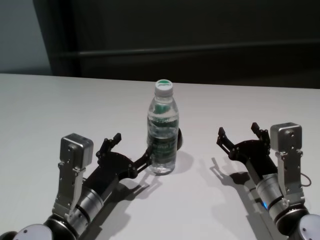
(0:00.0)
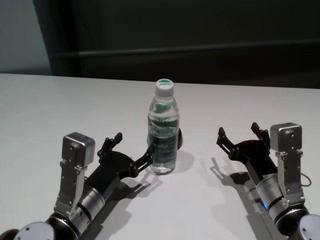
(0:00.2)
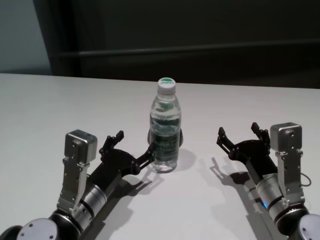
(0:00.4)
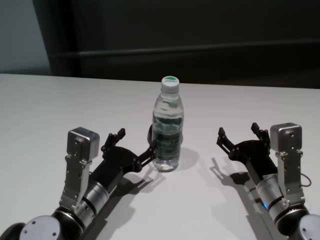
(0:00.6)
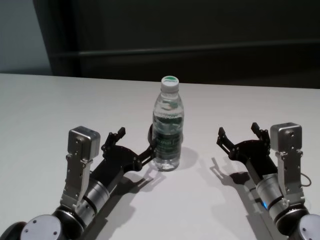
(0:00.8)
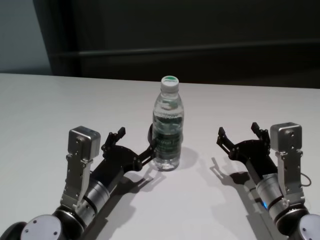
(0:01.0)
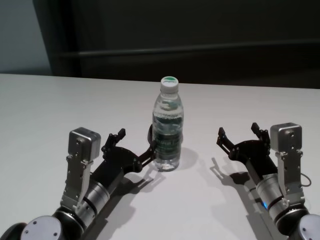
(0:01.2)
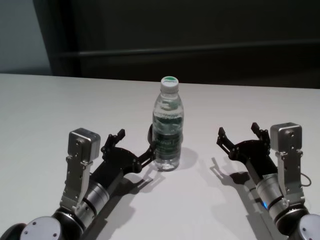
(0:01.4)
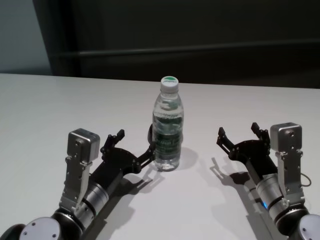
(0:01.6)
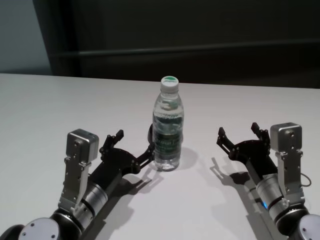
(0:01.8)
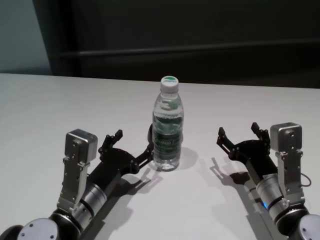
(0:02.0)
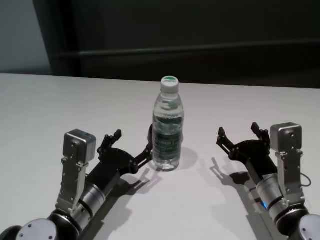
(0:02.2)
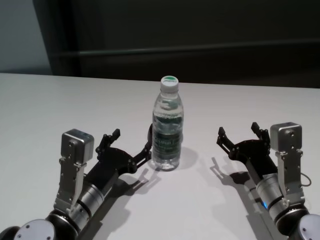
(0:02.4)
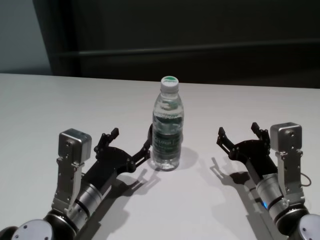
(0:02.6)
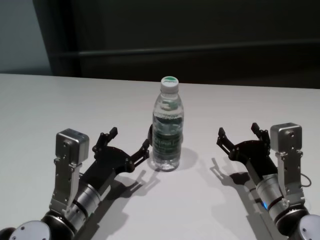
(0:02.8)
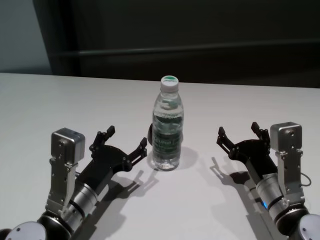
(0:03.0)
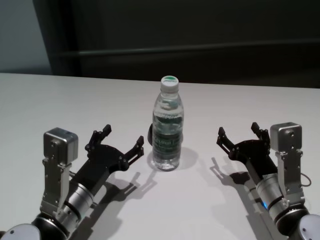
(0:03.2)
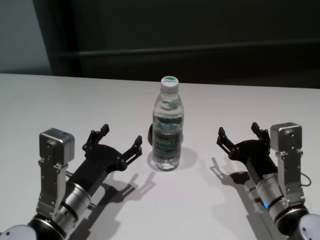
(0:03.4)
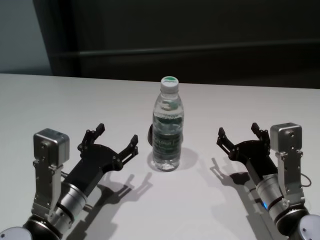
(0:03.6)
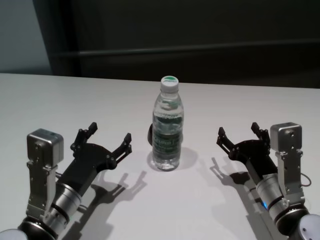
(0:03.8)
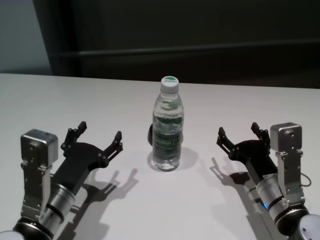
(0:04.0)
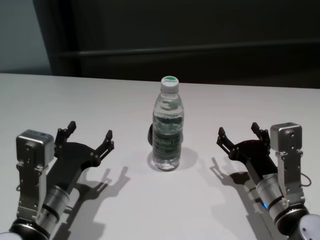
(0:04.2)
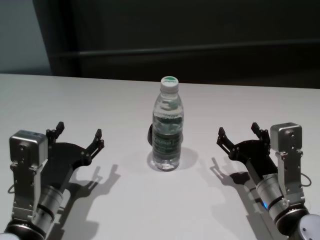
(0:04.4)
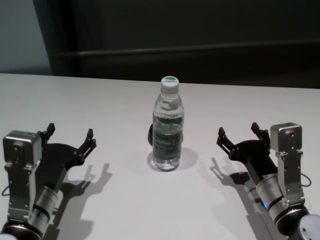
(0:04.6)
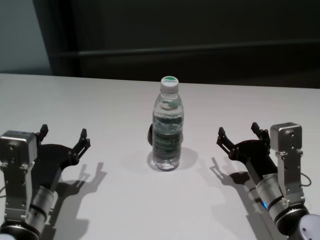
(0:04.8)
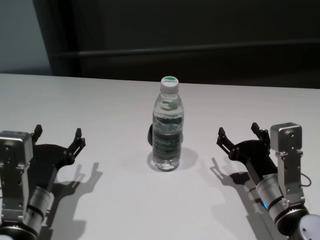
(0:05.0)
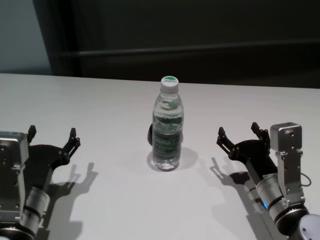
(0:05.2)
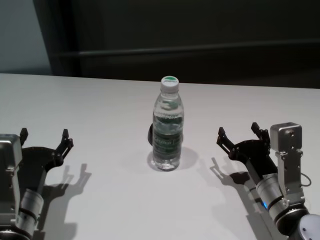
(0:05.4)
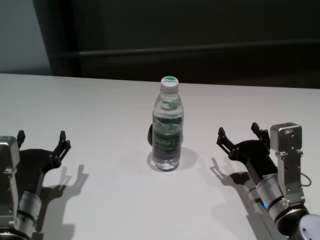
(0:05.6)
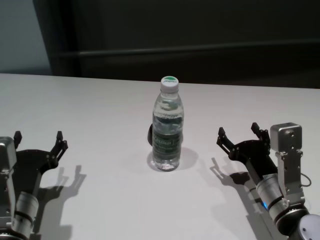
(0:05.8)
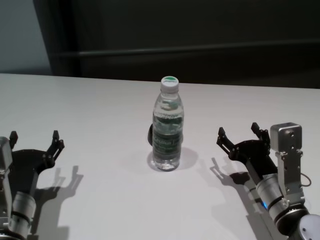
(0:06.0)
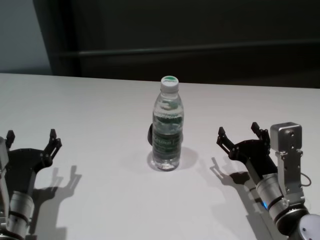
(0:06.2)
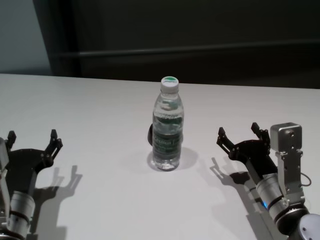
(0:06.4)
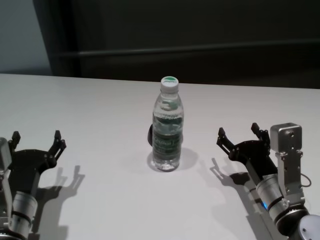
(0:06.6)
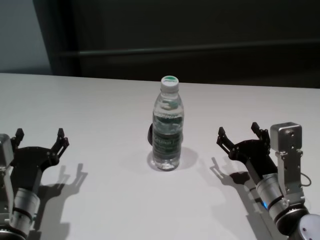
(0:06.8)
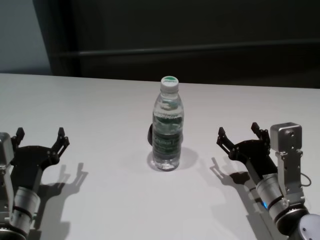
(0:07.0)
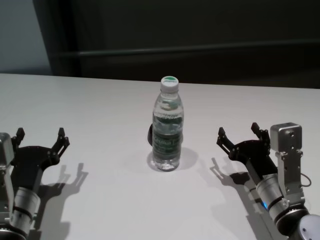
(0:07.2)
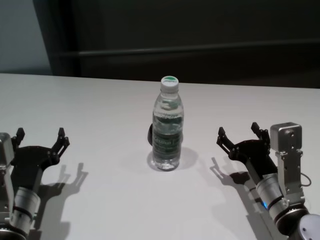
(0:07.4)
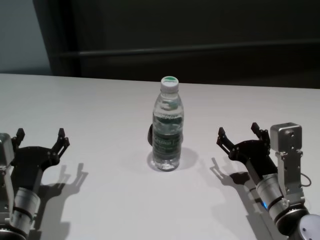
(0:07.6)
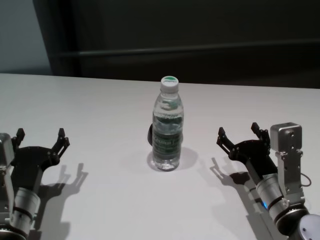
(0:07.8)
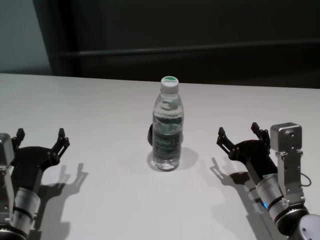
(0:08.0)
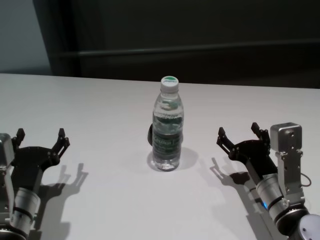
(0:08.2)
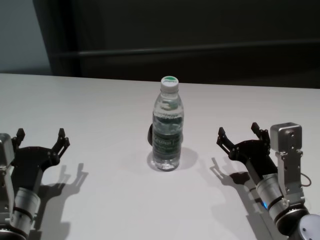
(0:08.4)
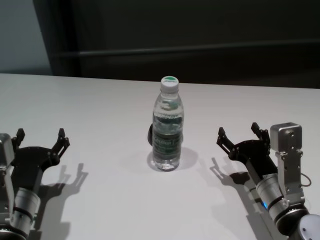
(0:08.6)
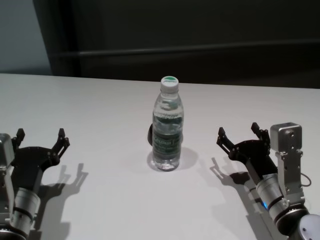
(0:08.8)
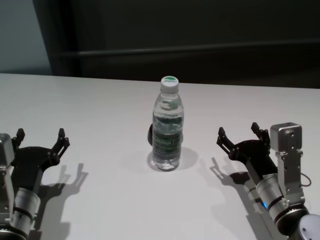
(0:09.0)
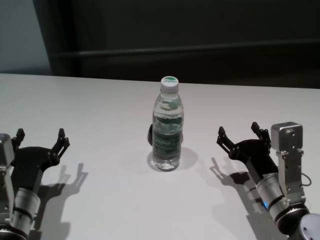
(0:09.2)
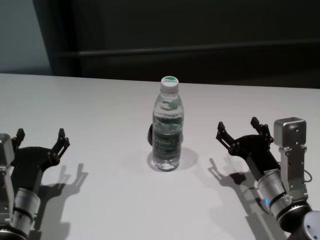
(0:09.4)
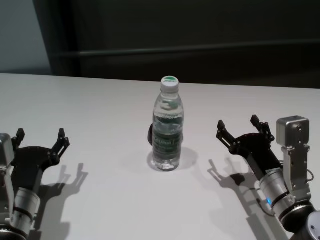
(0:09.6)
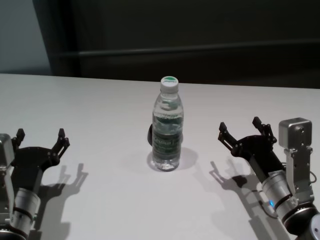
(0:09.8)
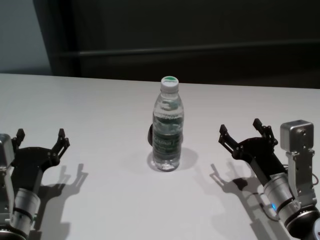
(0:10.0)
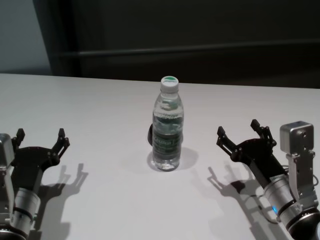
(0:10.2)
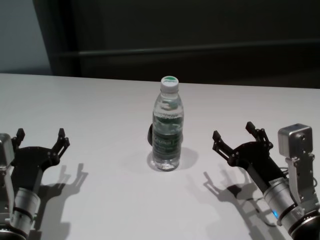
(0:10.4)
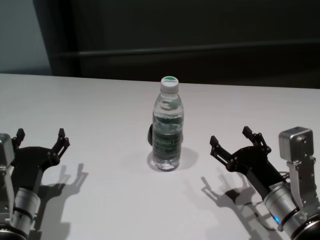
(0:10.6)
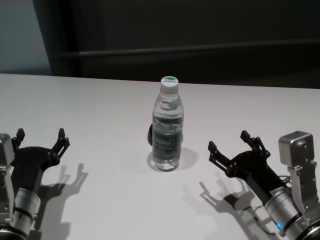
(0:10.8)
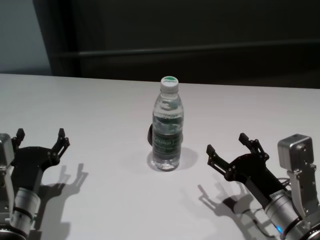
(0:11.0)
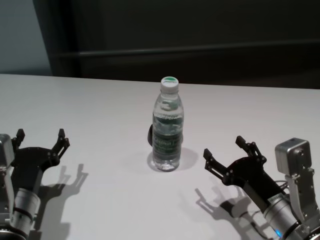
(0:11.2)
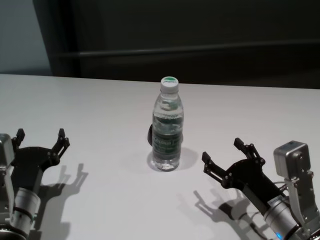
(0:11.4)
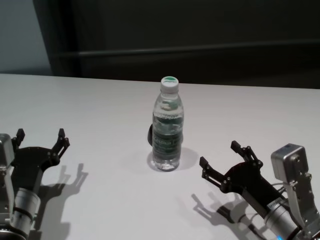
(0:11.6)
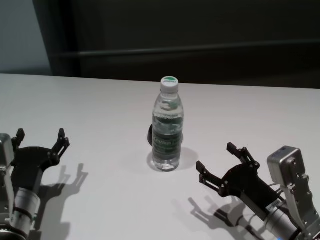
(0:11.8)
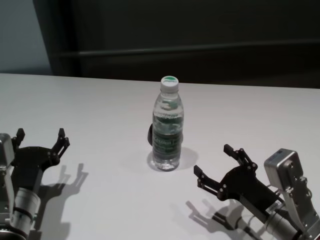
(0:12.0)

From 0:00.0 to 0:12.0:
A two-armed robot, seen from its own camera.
Task of the whole recording: return to a safe position after touching an obstacle with your arm on the white table.
Step, from 0:00.0 to 0:02.2: Touch the bottle with left gripper.

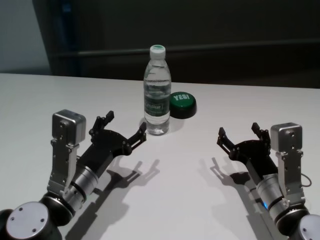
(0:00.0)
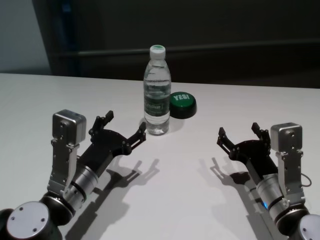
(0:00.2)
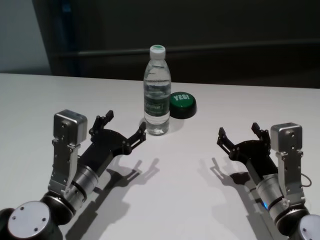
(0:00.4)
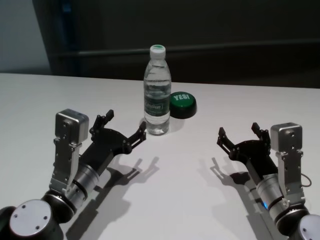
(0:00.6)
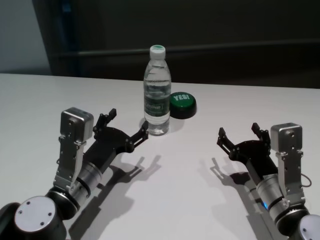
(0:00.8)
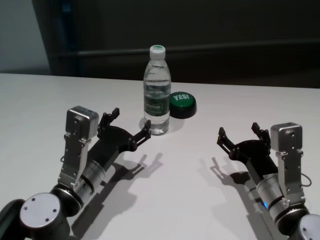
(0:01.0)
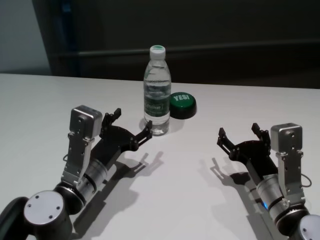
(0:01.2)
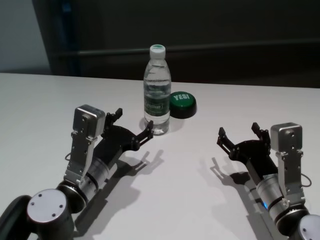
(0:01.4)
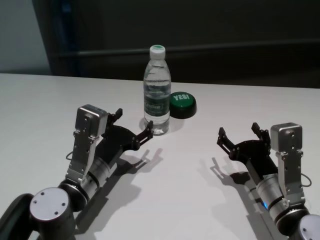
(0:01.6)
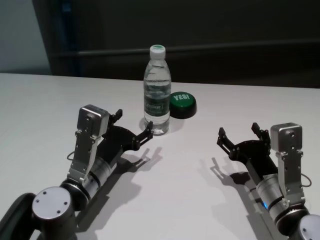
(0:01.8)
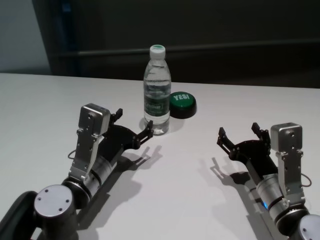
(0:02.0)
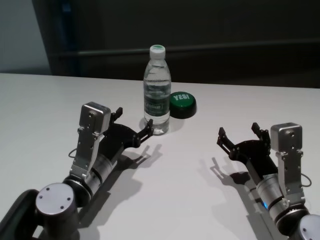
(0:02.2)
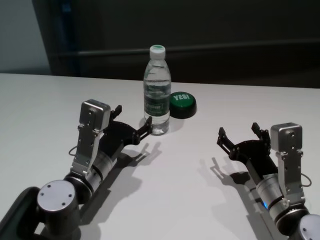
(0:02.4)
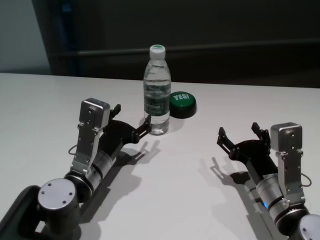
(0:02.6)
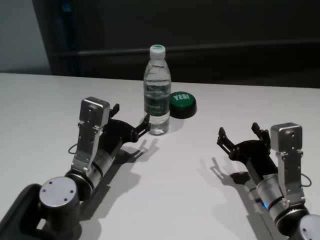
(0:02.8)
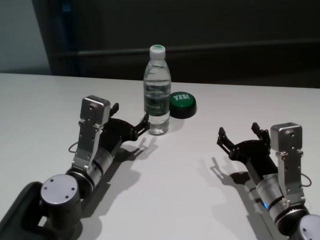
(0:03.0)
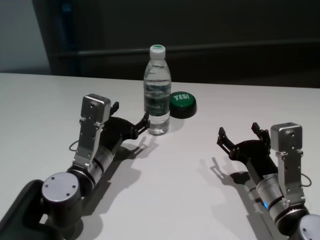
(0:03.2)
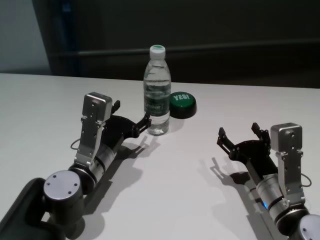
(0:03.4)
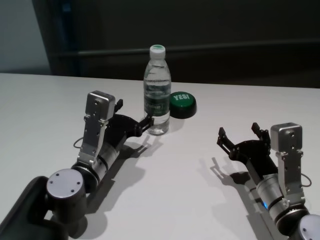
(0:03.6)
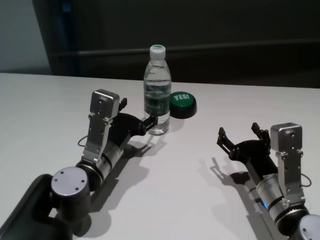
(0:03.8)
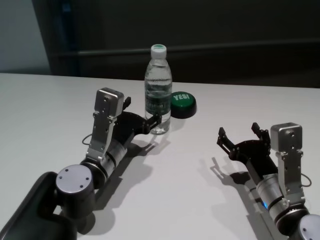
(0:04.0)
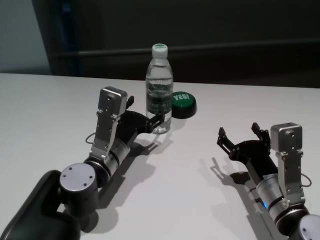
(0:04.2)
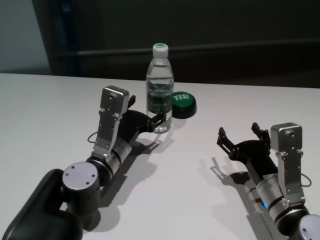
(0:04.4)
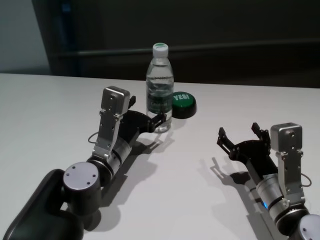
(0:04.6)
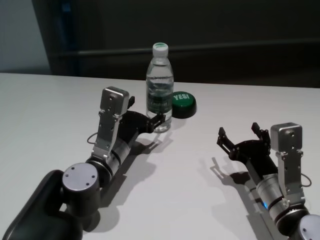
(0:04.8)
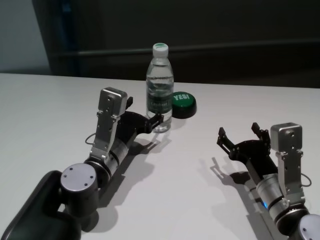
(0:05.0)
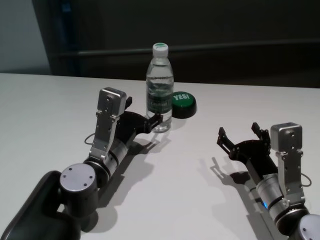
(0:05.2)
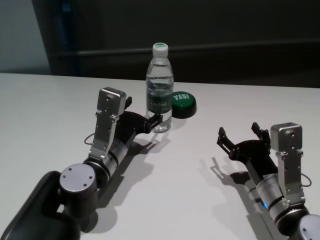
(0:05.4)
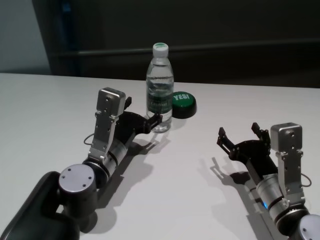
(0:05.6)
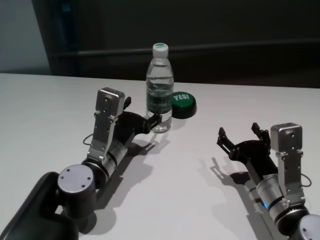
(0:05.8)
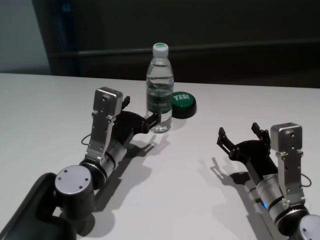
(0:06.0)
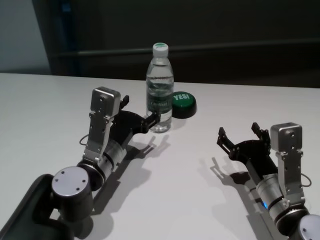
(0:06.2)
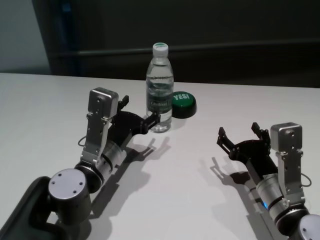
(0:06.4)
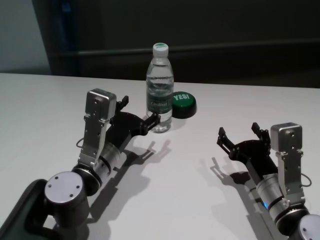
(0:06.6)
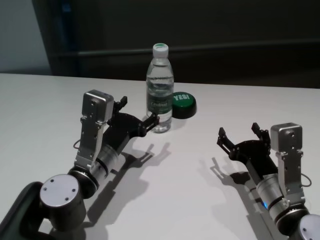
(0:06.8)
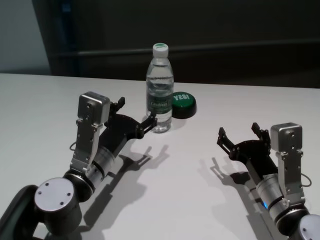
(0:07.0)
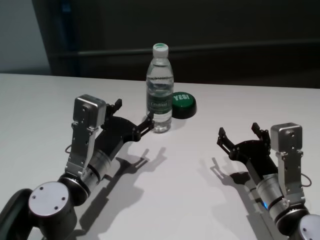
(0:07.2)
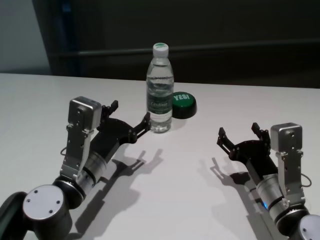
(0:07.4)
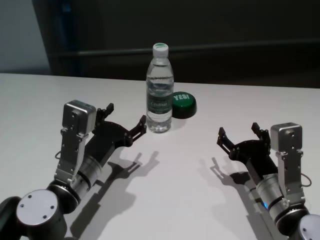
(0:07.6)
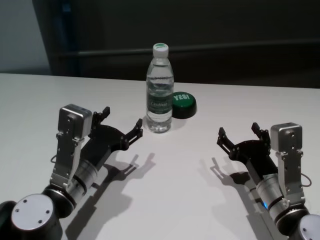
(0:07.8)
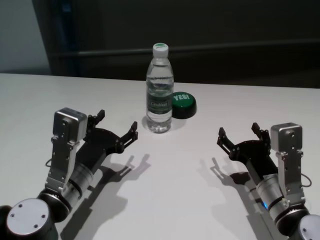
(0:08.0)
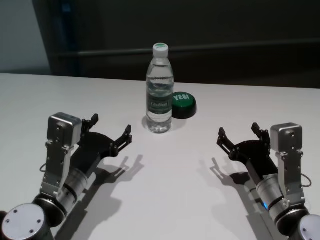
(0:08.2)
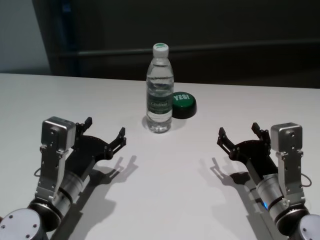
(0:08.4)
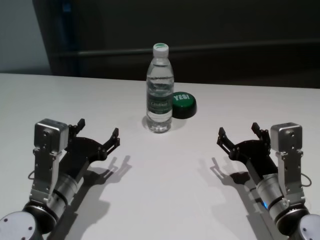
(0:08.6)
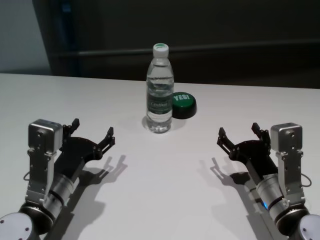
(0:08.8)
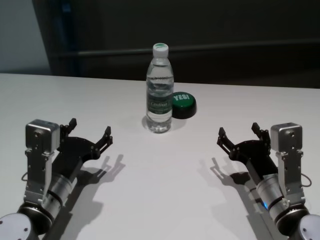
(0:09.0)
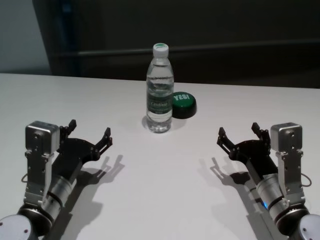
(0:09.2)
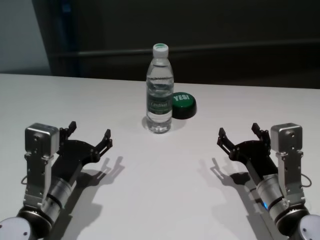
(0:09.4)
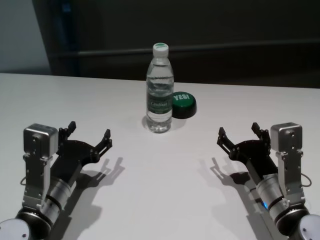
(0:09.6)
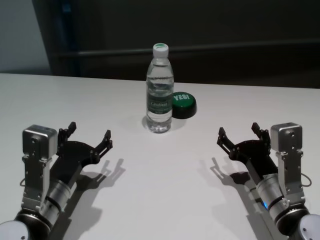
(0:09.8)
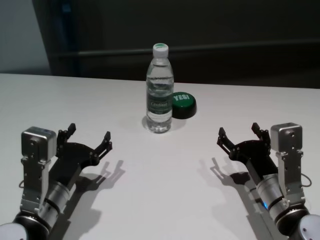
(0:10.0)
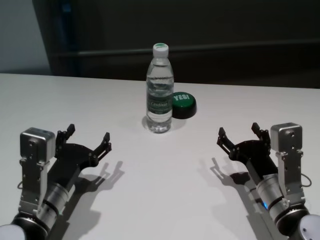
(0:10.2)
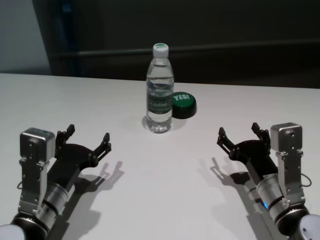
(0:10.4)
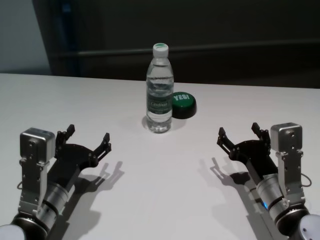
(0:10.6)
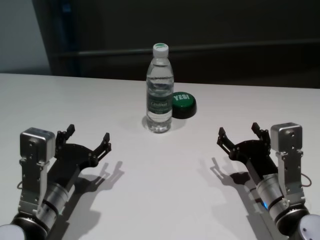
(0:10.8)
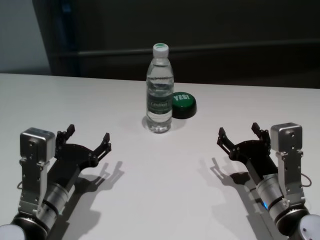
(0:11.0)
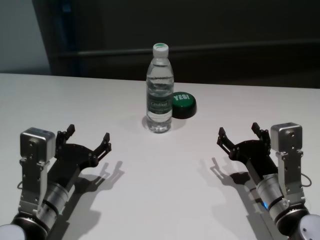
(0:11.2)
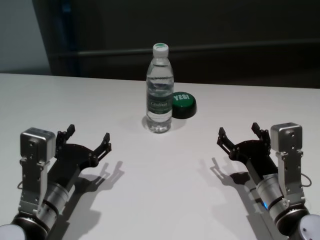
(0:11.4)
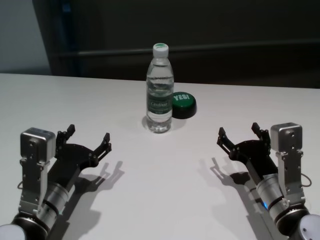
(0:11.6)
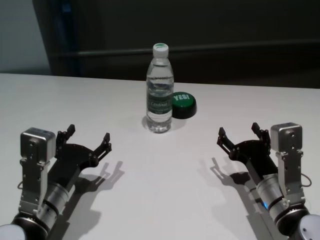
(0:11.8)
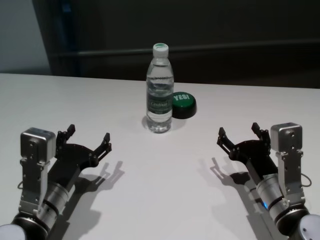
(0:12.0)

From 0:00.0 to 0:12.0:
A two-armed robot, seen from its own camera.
Task of the whole recording: return to a safe position after touching an obstacle with your arm on the white table.
Step, from 0:00.0 to 0:07.2: Touch the bottle with left gripper.
